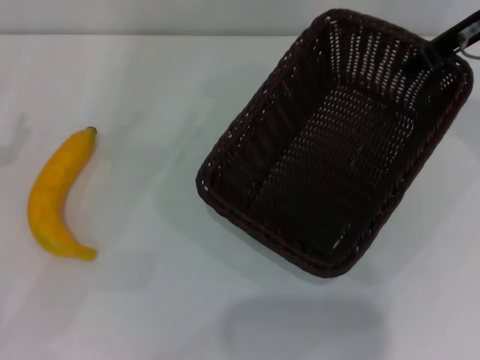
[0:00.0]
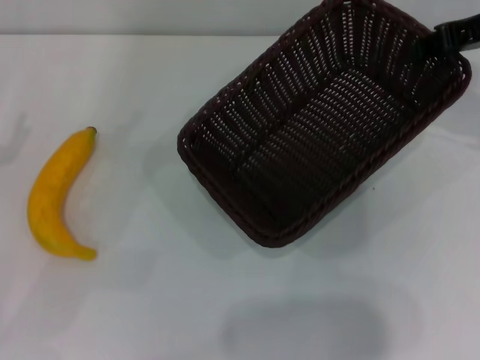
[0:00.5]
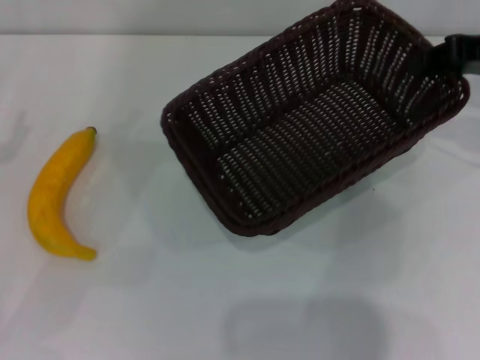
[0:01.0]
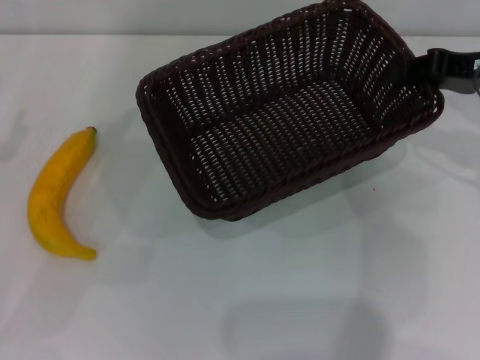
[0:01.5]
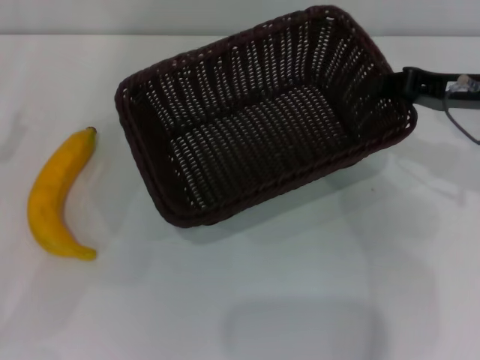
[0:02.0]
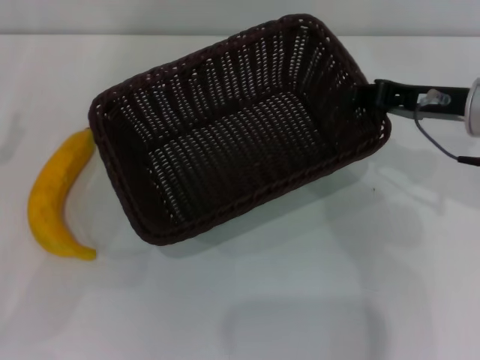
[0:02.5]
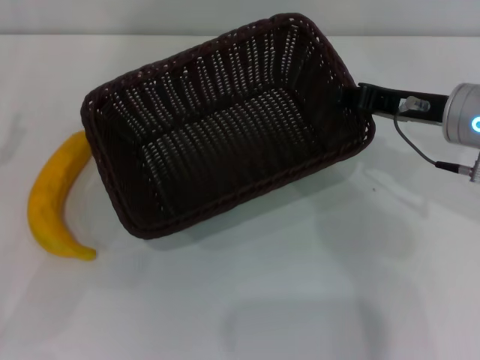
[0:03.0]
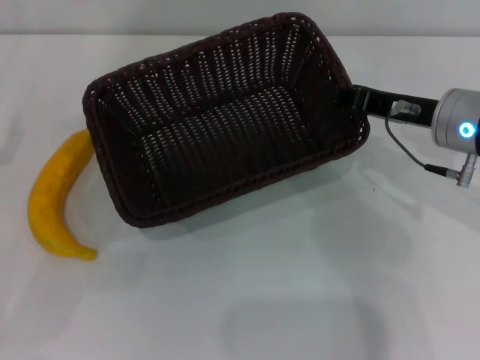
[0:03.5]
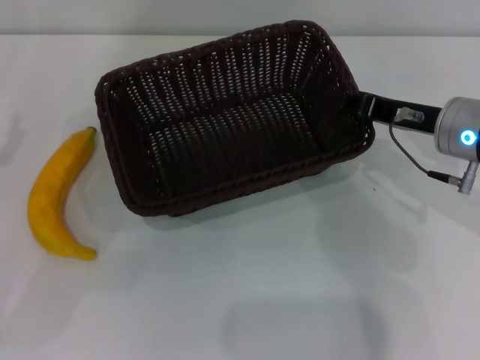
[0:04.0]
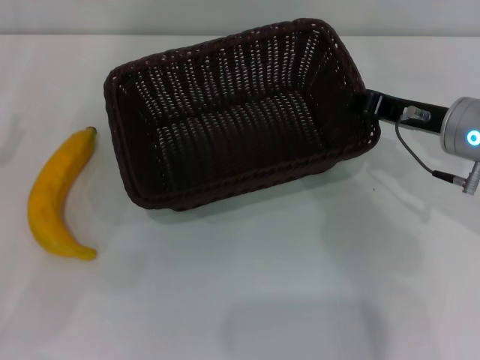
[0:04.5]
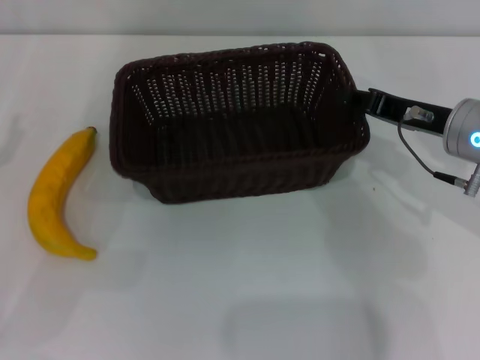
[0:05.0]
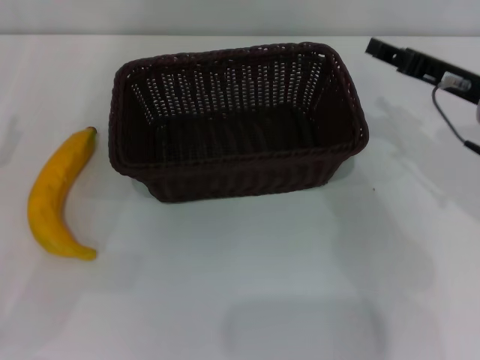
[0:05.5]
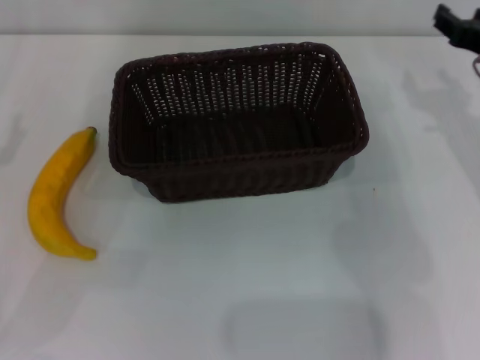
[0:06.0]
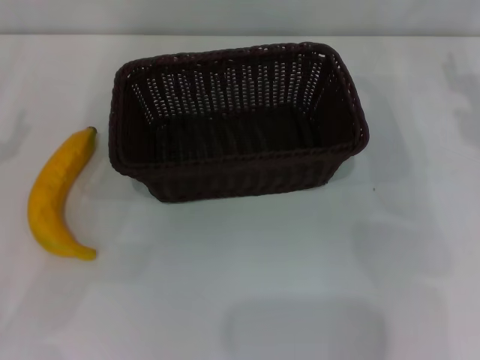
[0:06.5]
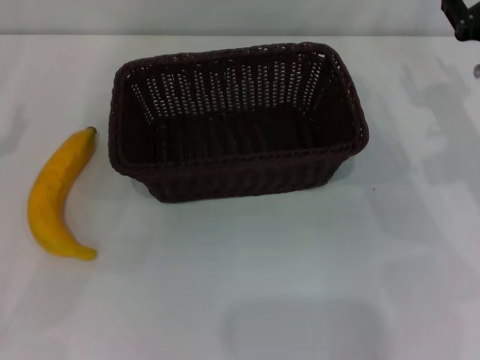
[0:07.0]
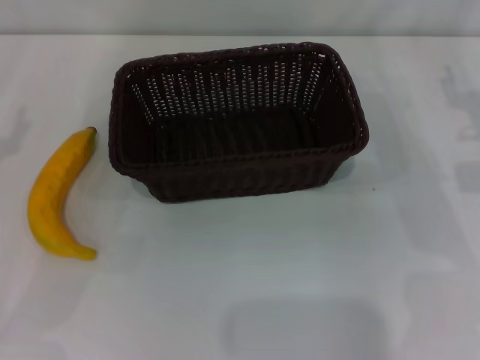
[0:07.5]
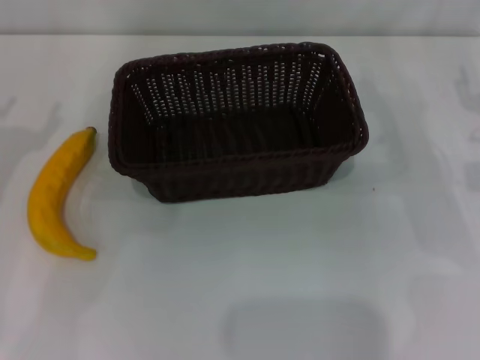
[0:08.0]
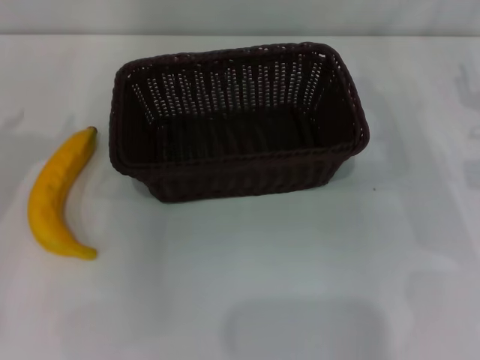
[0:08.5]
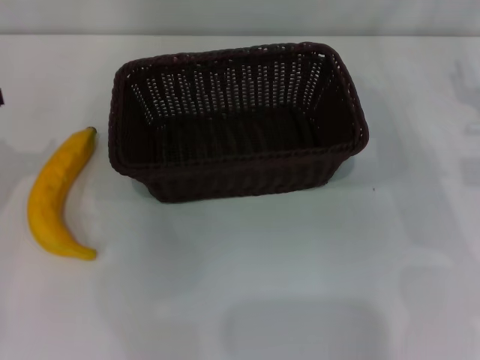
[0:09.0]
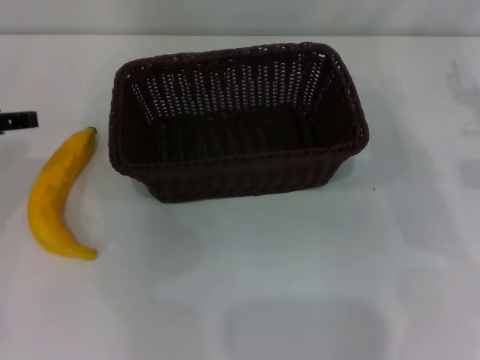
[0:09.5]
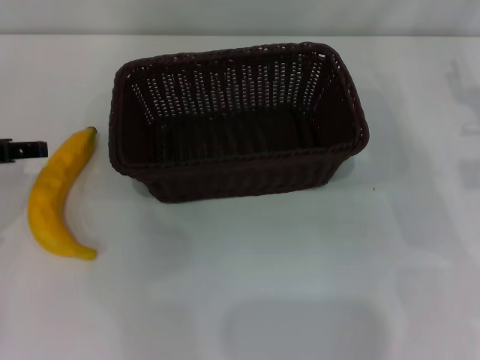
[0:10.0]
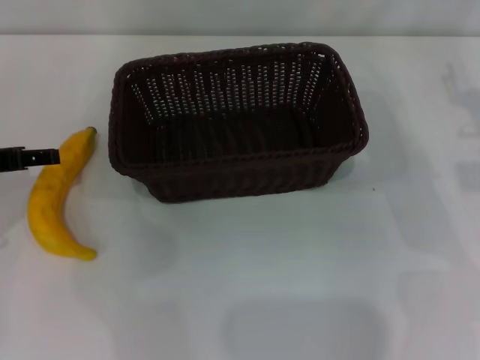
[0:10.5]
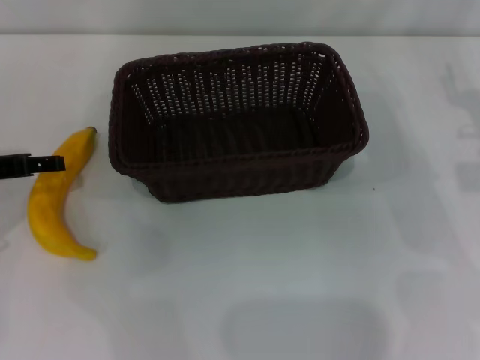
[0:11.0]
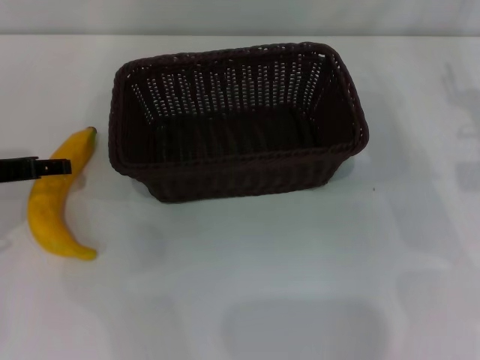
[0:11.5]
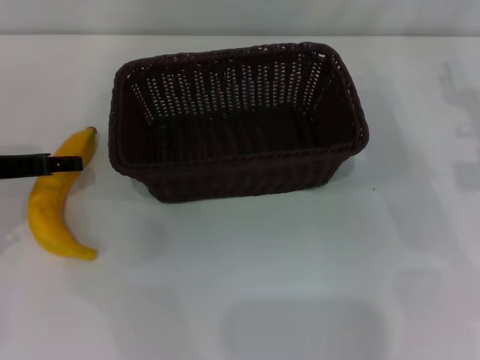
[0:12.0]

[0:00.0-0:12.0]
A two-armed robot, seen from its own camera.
Step, 1.0 to 5.5 s: Place the dark basket in the center of view with the right gripper.
0.0 to 2.0 s: The right gripper is displaced downward and backward by some 10 cm.
2.0 to 4.0 s: The right gripper moves some 5 cm.
4.0 to 6.0 s: The right gripper heads to the right, covering approximately 5 cm, and opens up.
6.0 to 8.0 s: The right gripper shifts by roughly 5 cm.
10.0 to 12.0 s: The left gripper shifts by about 5 cm.

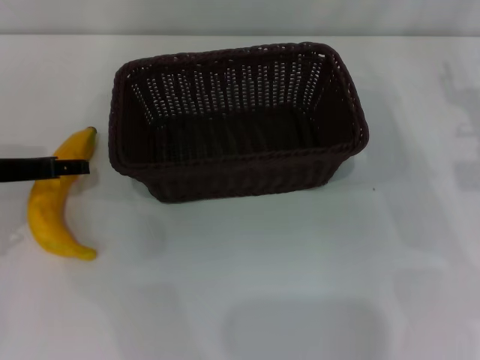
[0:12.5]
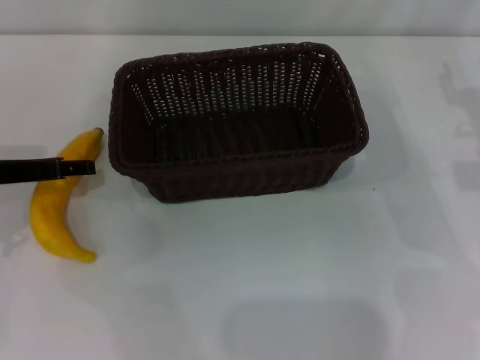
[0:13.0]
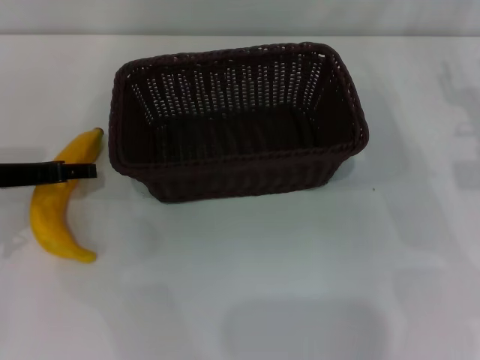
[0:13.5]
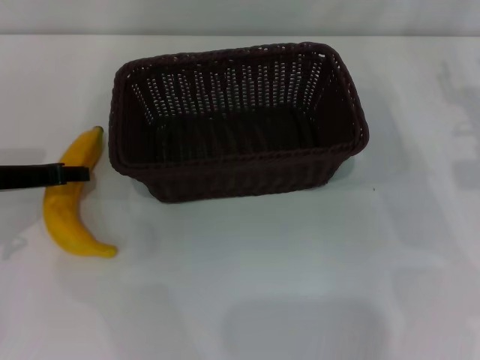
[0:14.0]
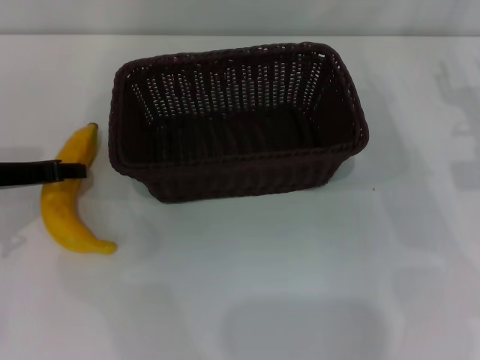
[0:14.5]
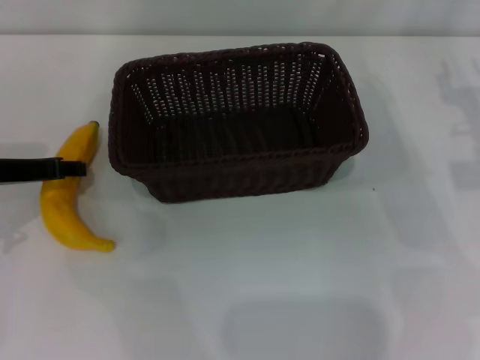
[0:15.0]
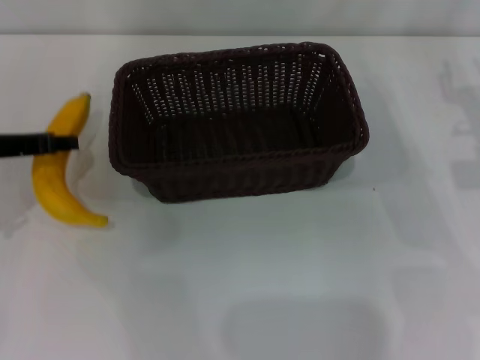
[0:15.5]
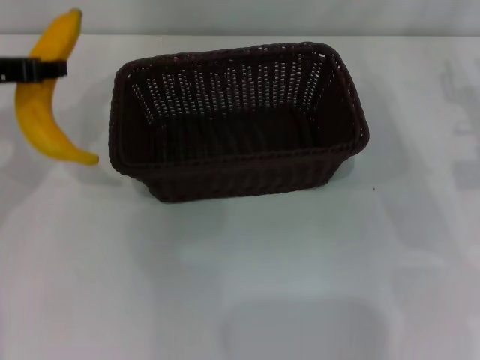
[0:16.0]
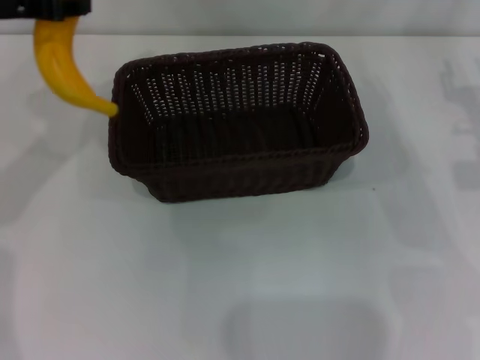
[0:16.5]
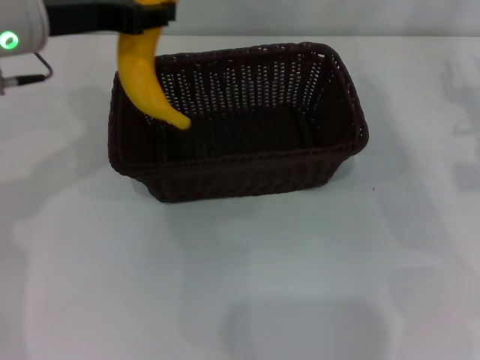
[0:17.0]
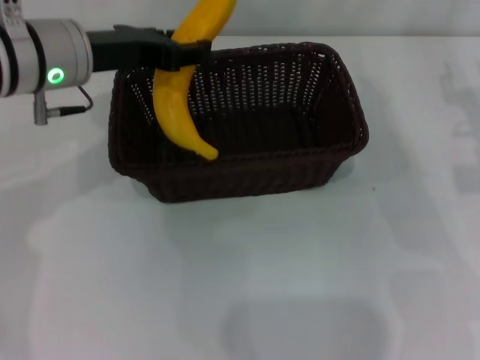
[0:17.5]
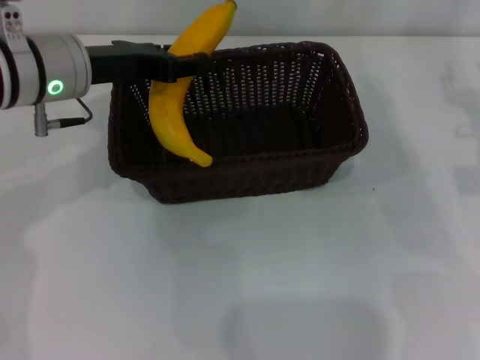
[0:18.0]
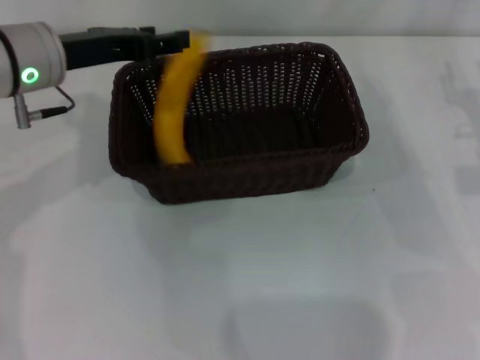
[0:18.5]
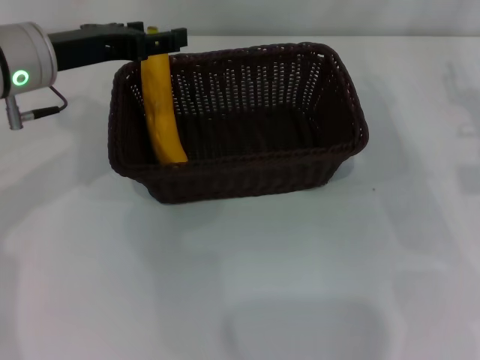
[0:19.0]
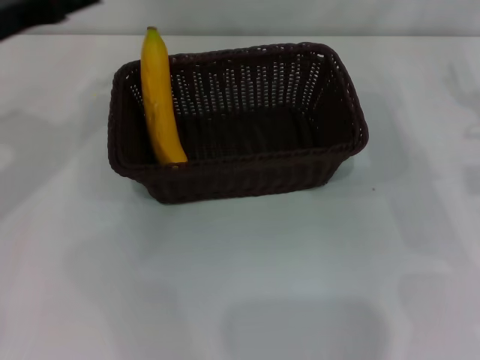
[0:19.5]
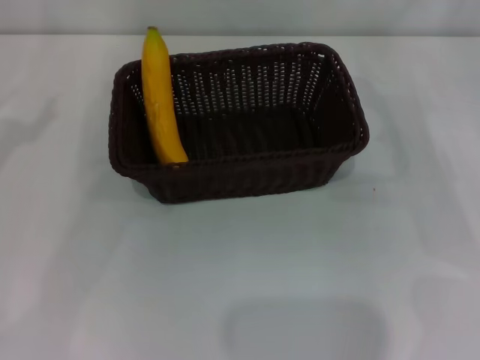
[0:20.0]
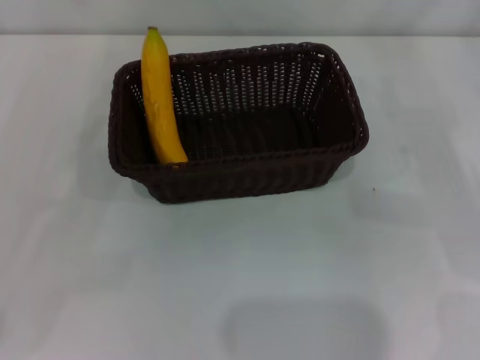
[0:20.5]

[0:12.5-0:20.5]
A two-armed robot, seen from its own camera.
Step, 12.5 to 16.0 s: Pick up the banana with the left gripper.
Step, 16.5 to 19.0 s: Place the banana into the dark basket with the left gripper.
12.5 to 14.5 s: The left gripper closes.
14.5 to 16.5 s: The left gripper is displaced upward by about 15 cm.
16.5 to 18.5 s: The left gripper shifts roughly 5 cm downward.
18.5 to 20.5 s: The left gripper travels to the left and backward by some 25 cm, and opens up. The right gripper goes about 5 cm to the right, and opens its fingers.

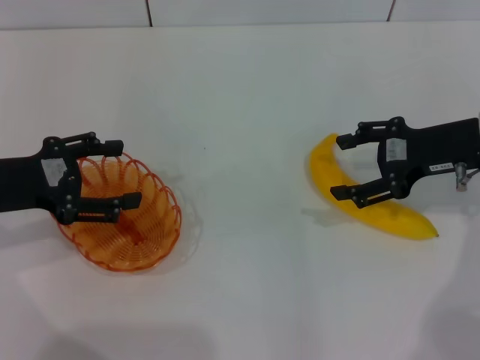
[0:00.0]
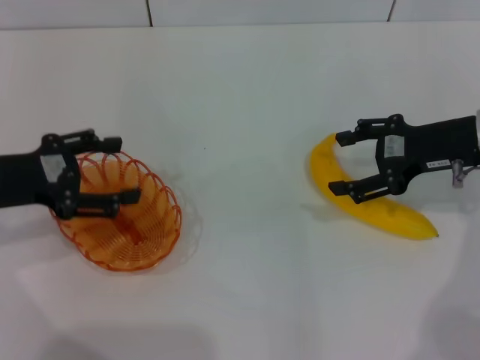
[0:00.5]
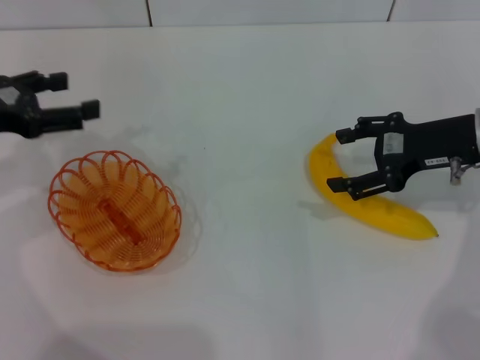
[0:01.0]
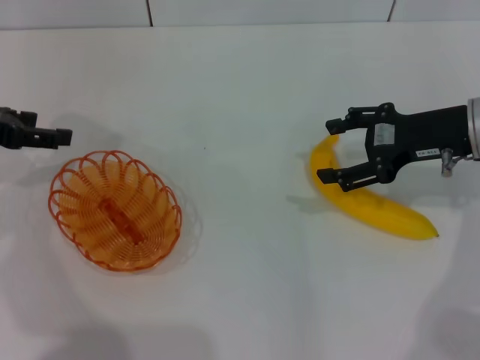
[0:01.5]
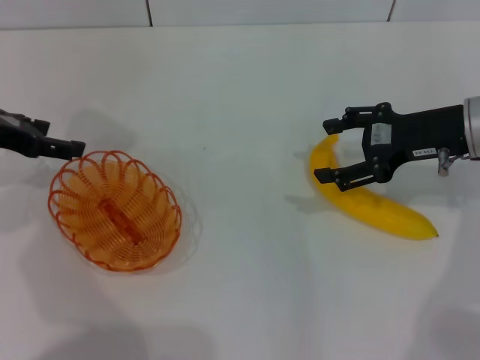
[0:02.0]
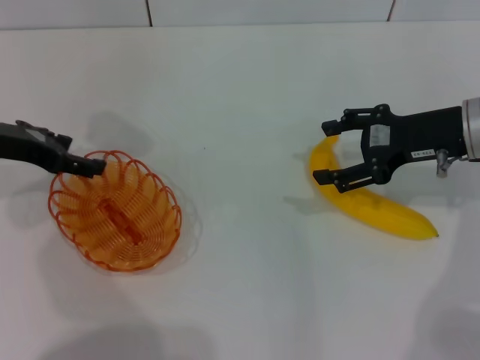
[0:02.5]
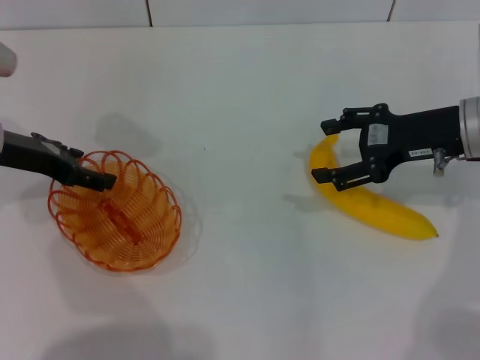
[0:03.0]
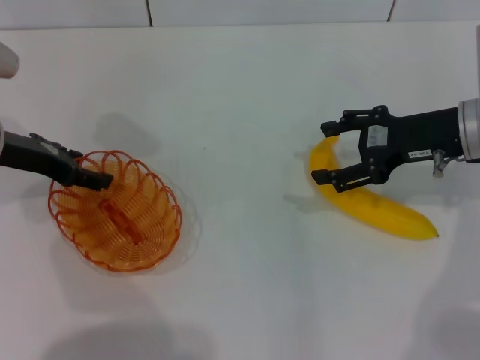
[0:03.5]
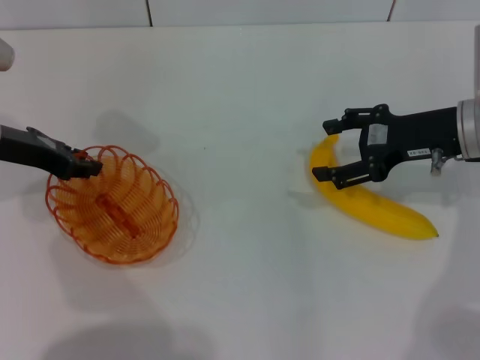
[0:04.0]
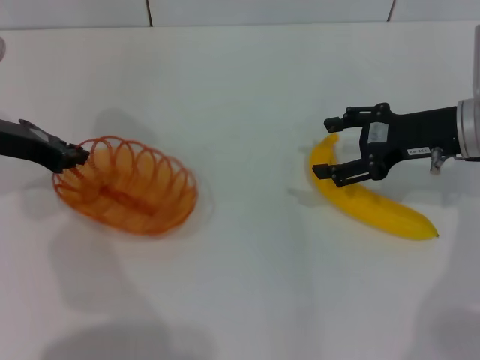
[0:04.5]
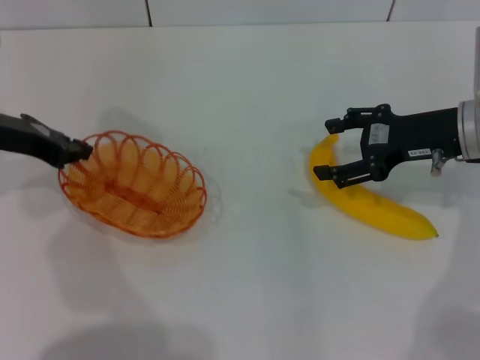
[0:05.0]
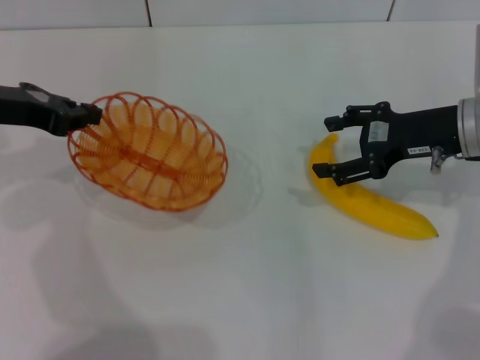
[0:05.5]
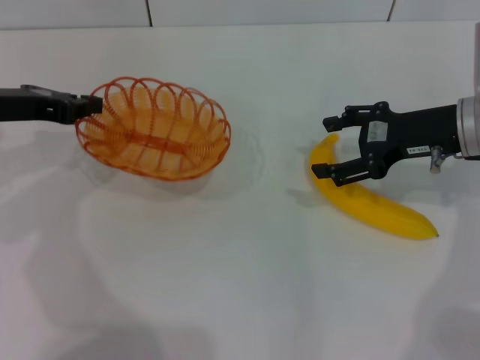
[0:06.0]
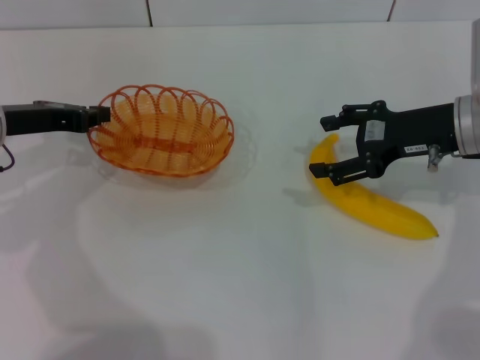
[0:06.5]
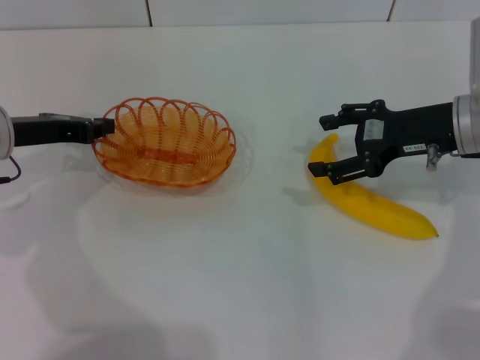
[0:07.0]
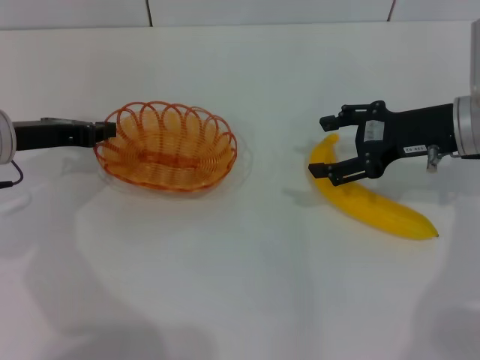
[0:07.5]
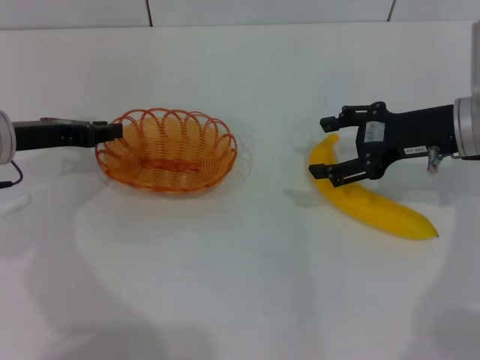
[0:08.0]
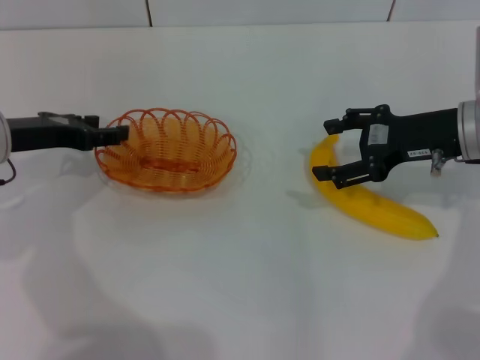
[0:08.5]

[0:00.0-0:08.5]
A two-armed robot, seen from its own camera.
Step, 0.0 to 5.0 s: Pick up the basket with the left gripper.
0.0 to 2.0 s: The left gripper moves forward, about 5 cm.
2.0 to 4.0 s: There are only small adjustments of the grippers.
4.0 to 6.5 s: The left gripper closes.
6.5 to 8.5 s: The left gripper opens.
